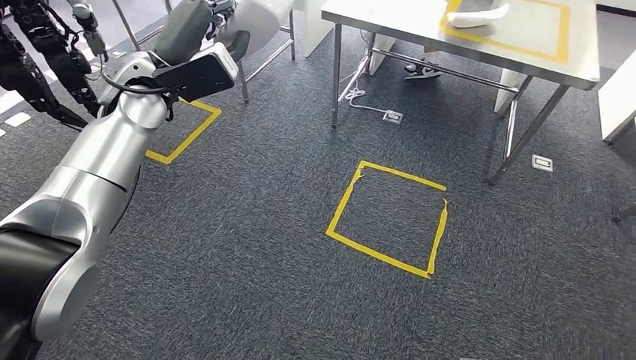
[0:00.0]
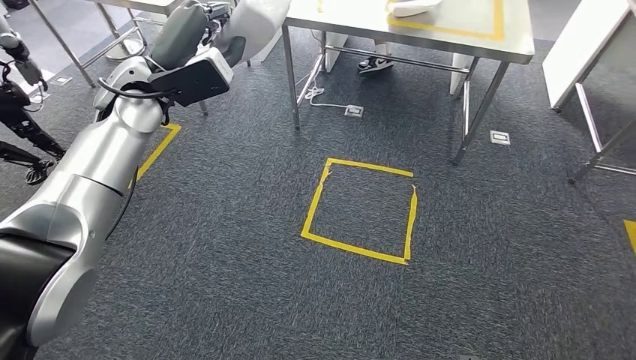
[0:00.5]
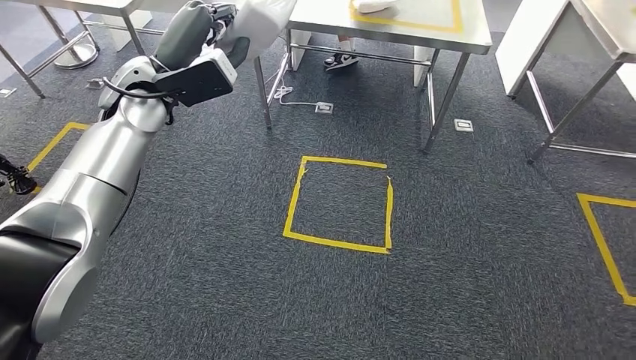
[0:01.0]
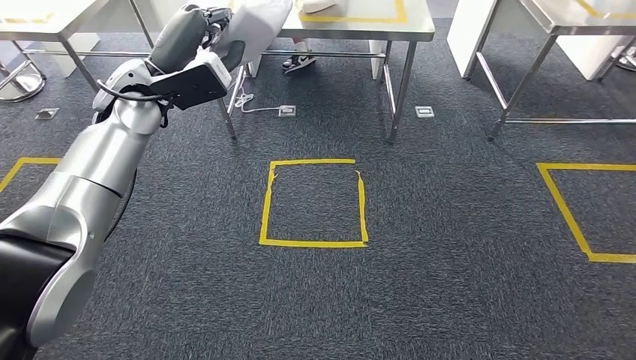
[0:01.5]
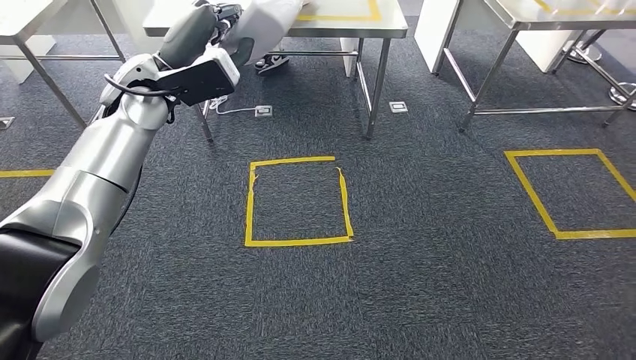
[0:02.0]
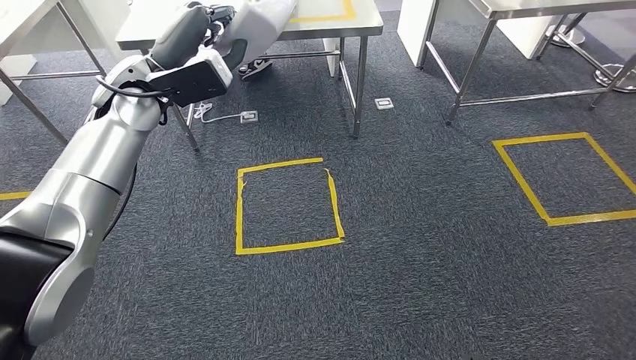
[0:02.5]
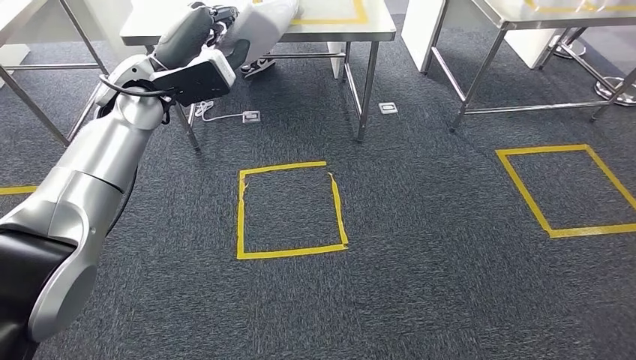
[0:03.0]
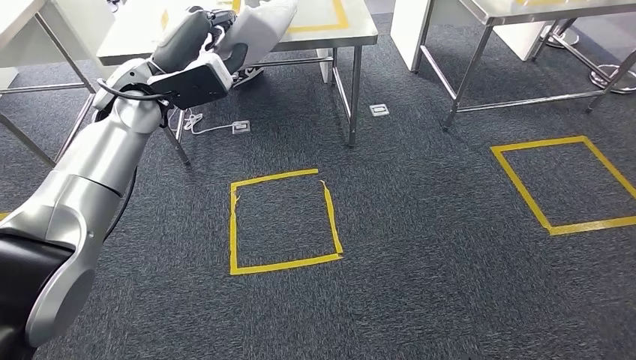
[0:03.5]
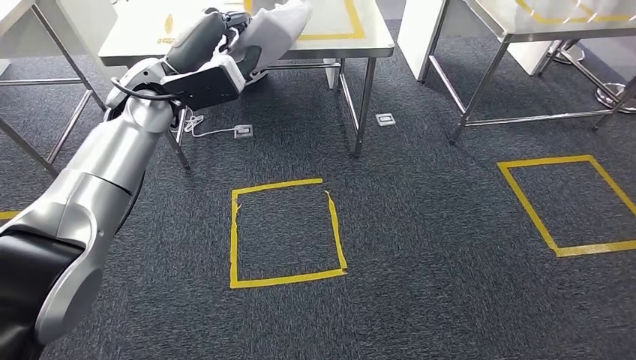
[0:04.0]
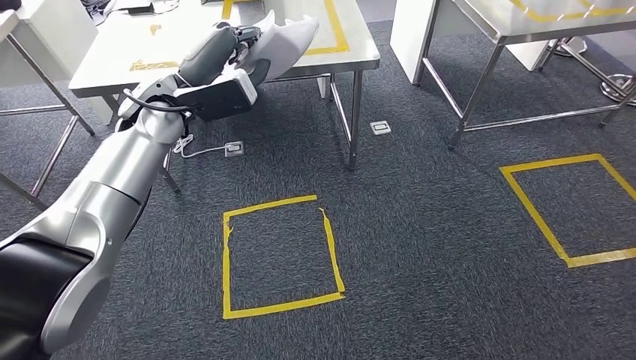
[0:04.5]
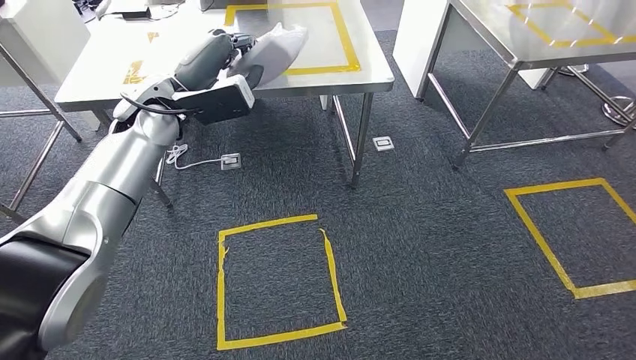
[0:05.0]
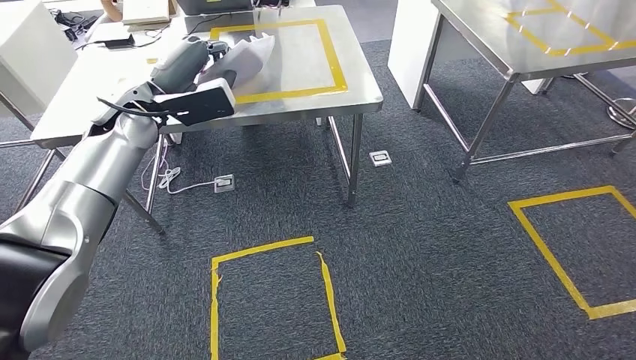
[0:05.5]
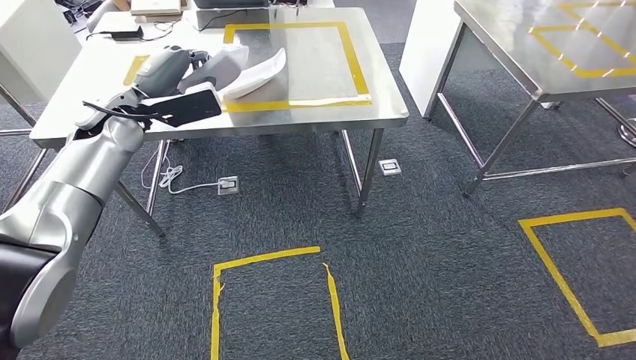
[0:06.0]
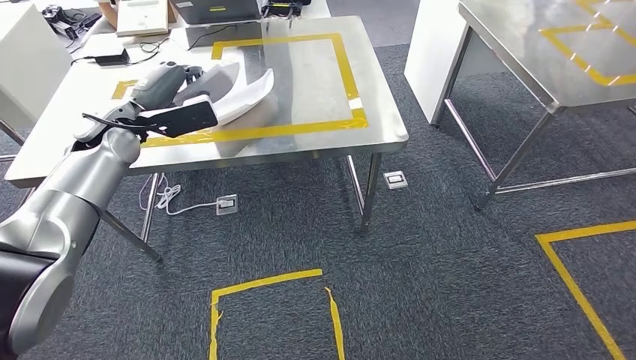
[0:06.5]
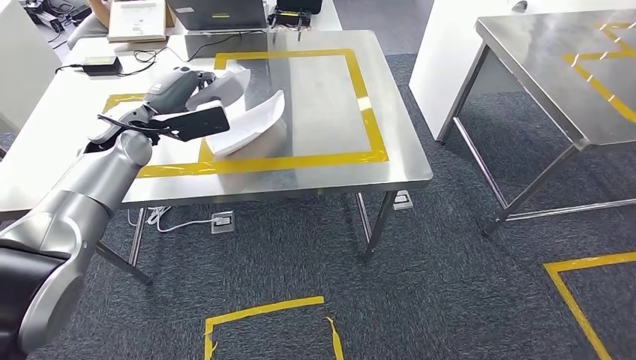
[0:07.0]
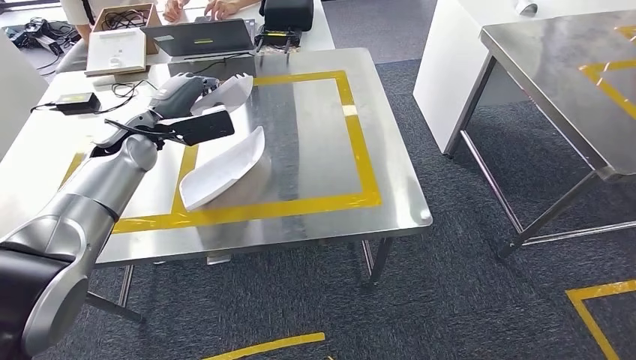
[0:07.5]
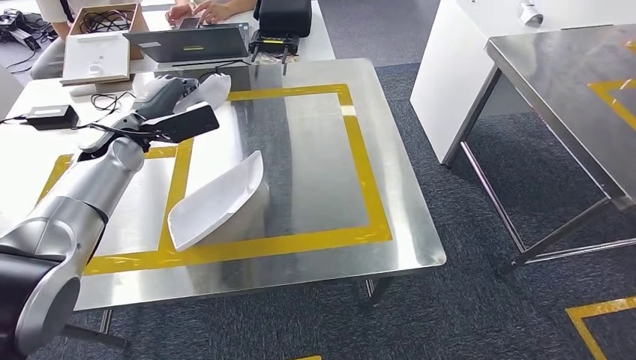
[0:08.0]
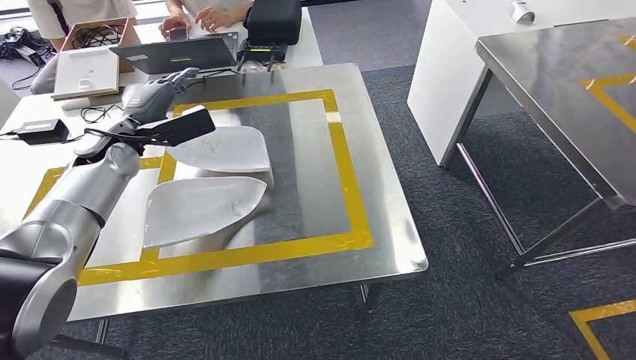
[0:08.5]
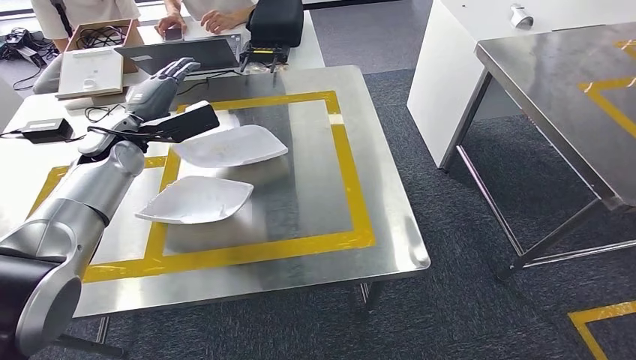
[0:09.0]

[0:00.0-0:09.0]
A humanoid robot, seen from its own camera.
Step, 0:00.0 to 0:08.0: Move the small component to the workbench.

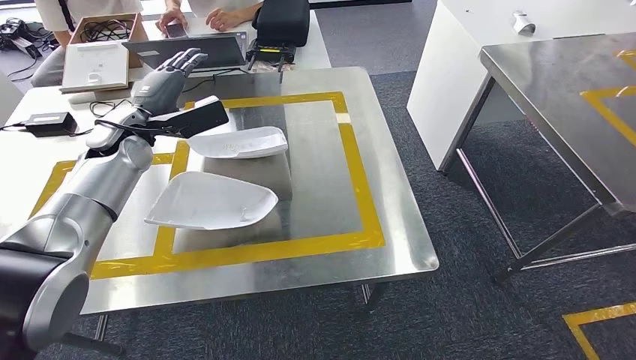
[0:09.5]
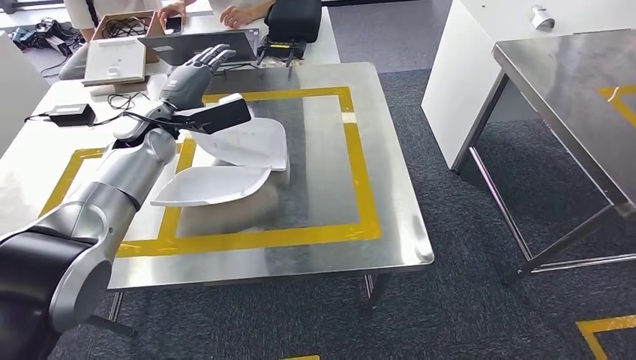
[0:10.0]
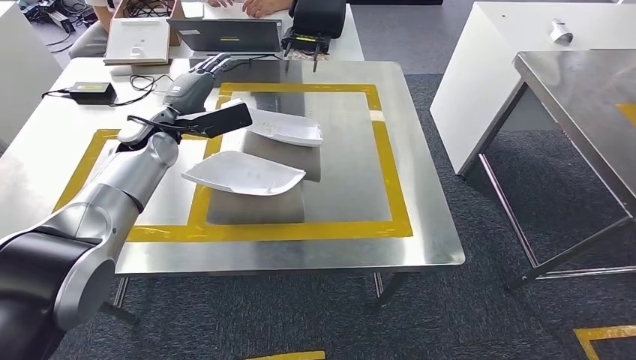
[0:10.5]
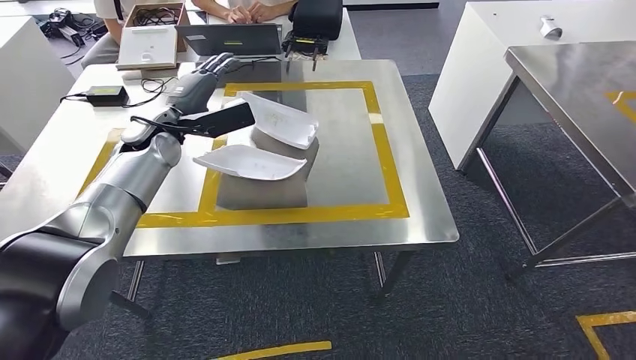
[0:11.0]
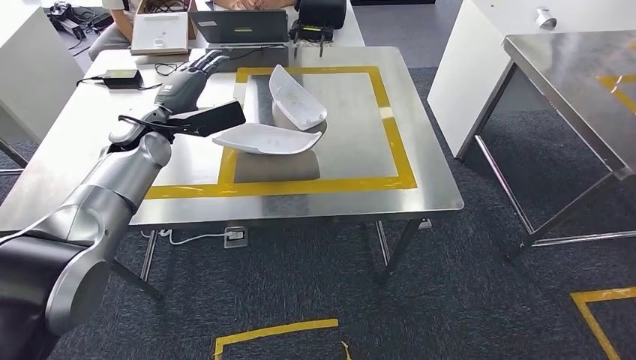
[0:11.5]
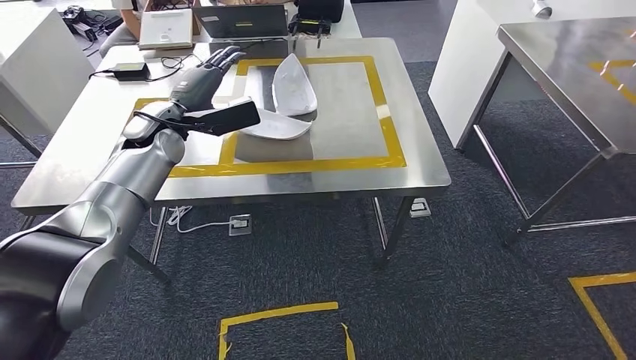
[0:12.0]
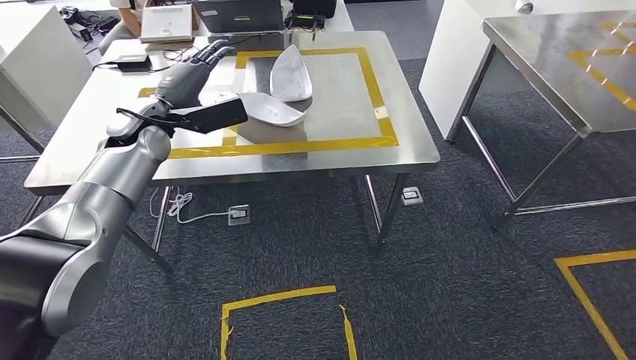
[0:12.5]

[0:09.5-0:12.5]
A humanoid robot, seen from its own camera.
Step, 0:10.5 to 0:12.5: Return to the initial position at the workbench.
